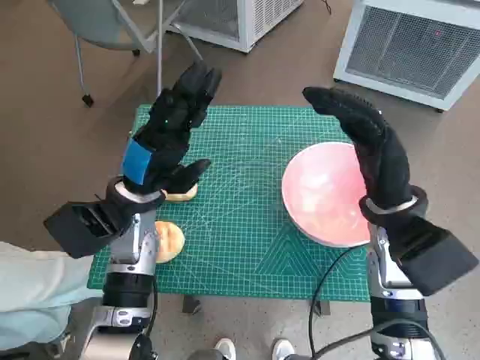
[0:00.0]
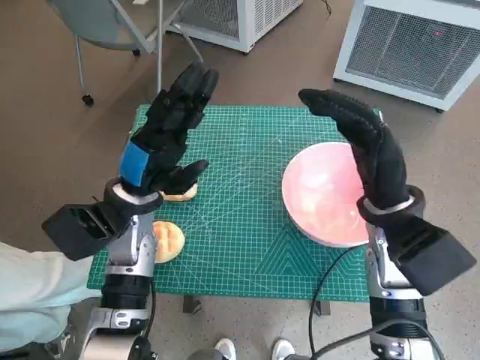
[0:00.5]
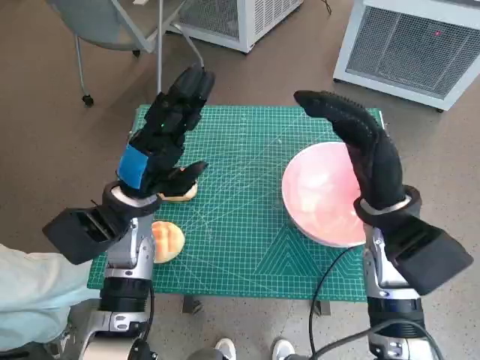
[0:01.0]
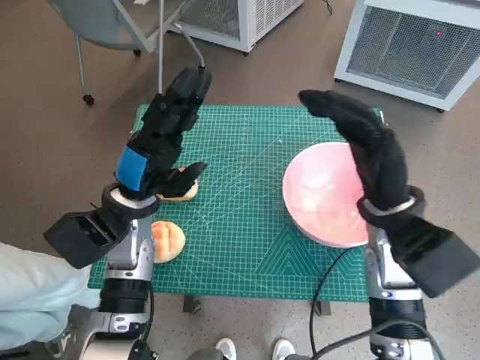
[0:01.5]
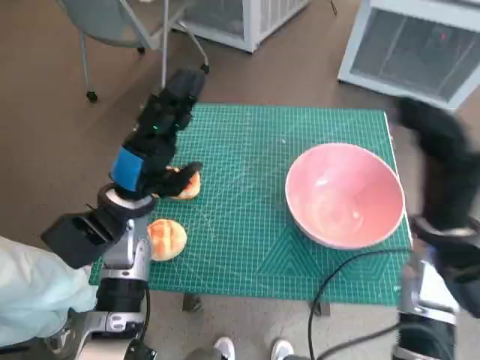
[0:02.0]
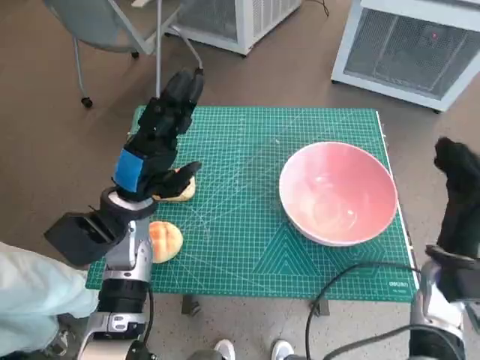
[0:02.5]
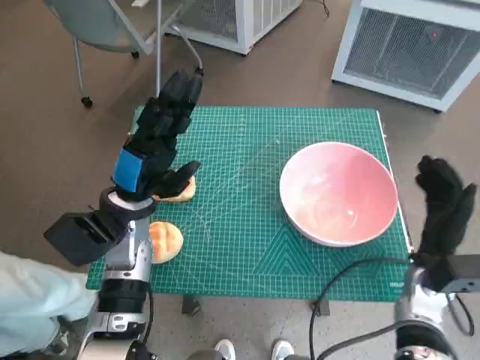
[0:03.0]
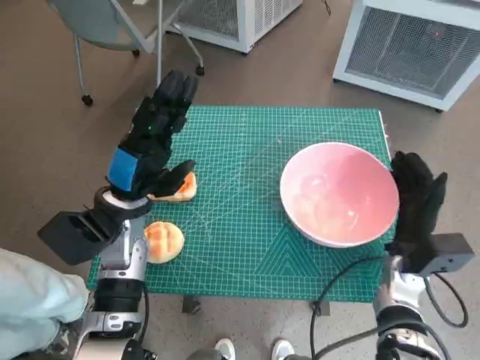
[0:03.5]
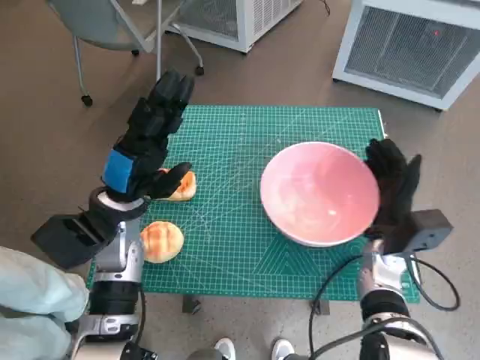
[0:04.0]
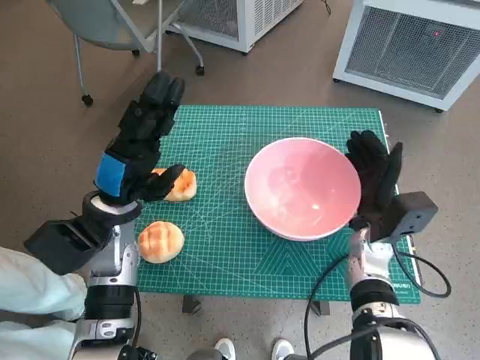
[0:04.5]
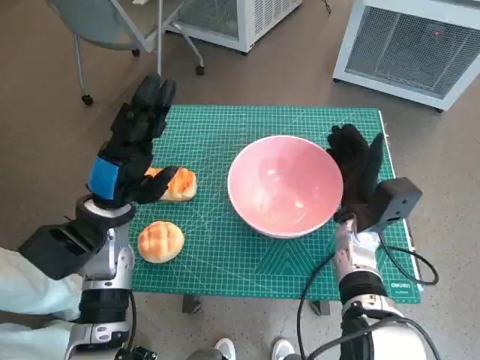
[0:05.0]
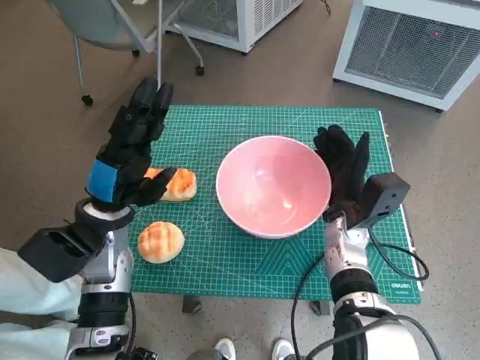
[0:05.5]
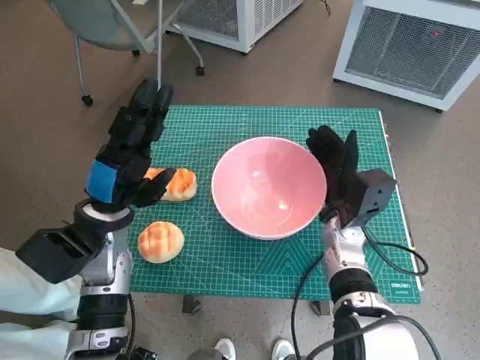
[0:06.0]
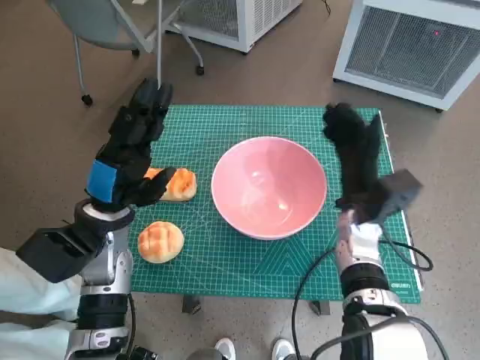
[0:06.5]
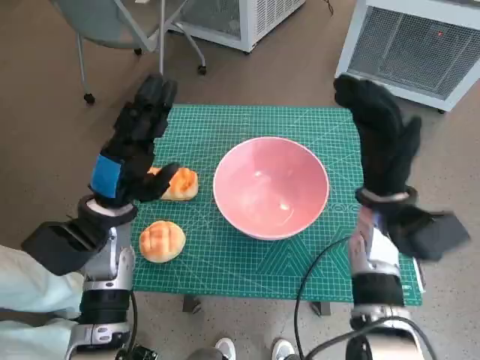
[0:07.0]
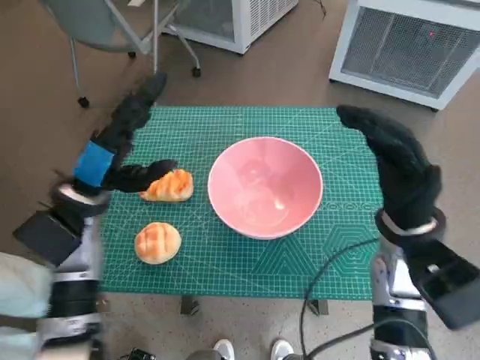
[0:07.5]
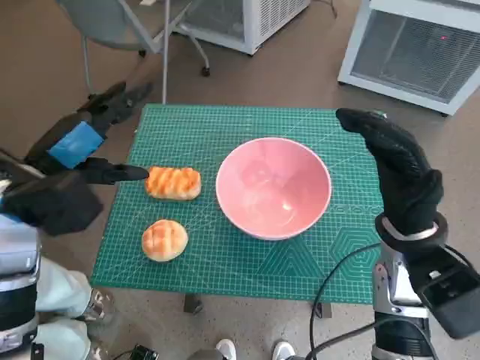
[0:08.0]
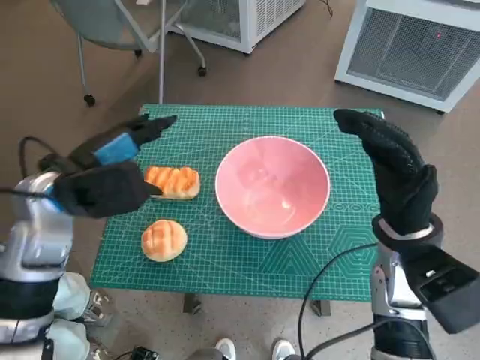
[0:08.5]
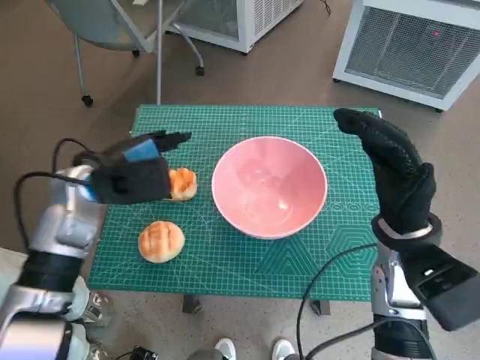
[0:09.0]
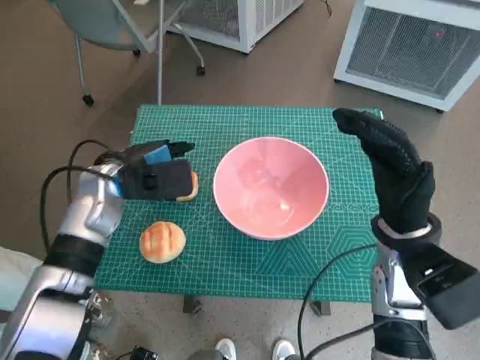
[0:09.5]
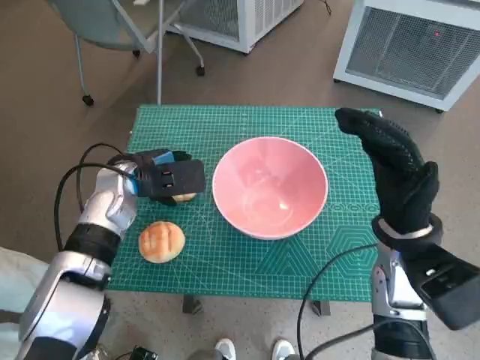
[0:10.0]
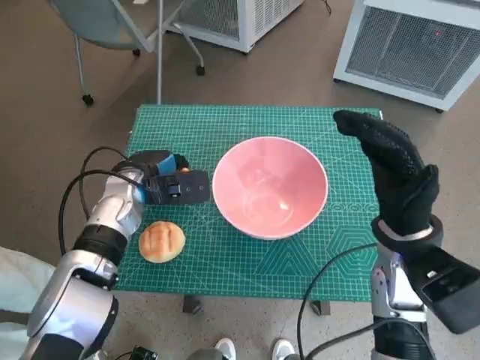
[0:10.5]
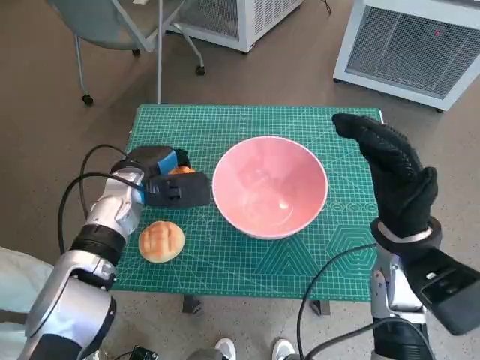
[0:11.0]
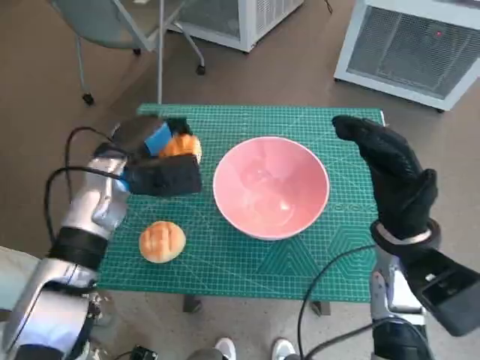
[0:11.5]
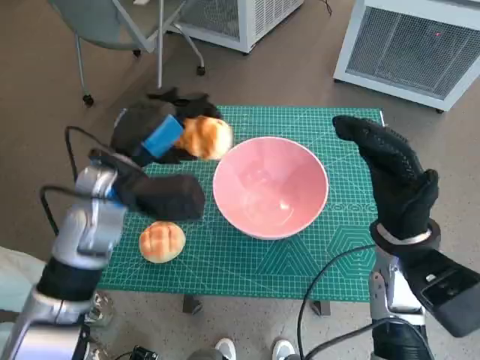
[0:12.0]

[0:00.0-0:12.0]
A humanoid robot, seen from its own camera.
Task of the whole recording: Push the bowl into the center of the table and put the bread into the bowl.
Step, 0:00.0 to 0:06.0: Move the pink bowl to the center of table with right hand.
Step, 0:06.5 to 0:10.0: Grasp the long bread with left hand.
0:02.0 to 0:04.0: The right hand goes about 10 cm downward.
0:04.0 to 0:06.0: The right hand is displaced to the left by about 5 cm.
0:06.0 to 0:08.0: The left hand is displaced upward by roughly 10 cm, while the right hand is displaced upward, backward and to the right by some 10 cm.
0:08.0 to 0:10.0: The left hand travels downward, forward and to the right by roughly 15 cm.
0:10.0 to 0:12.0: The left hand is displaced upward by about 5 cm.

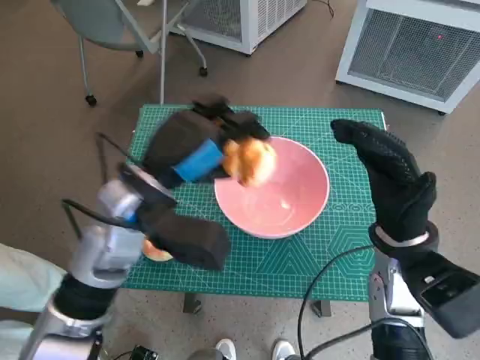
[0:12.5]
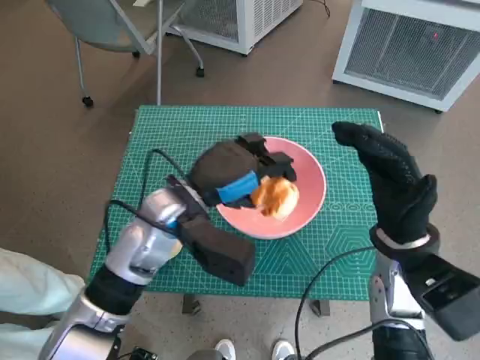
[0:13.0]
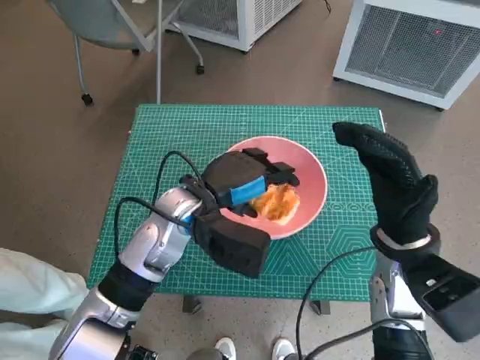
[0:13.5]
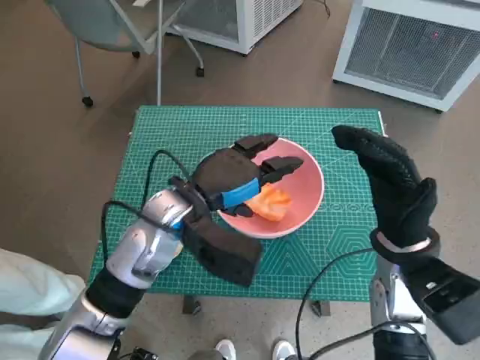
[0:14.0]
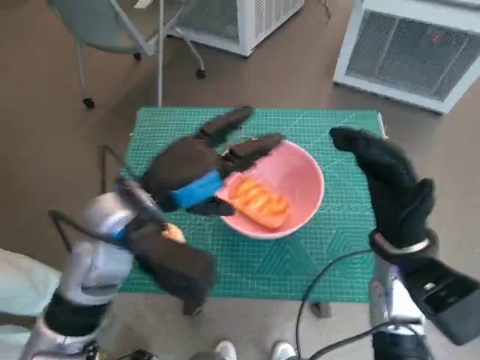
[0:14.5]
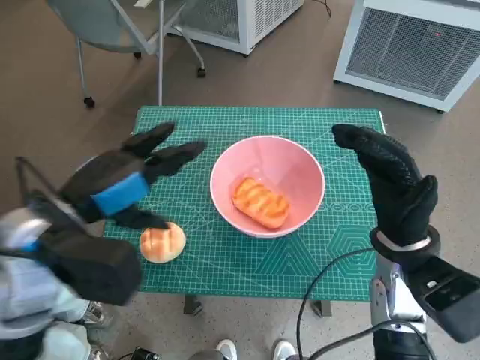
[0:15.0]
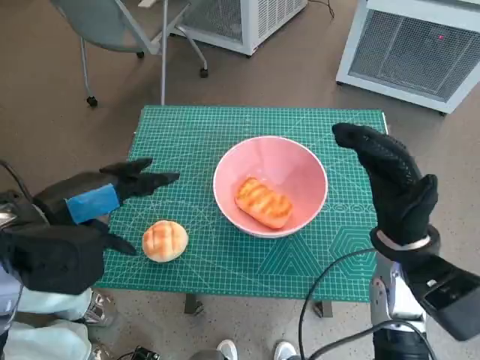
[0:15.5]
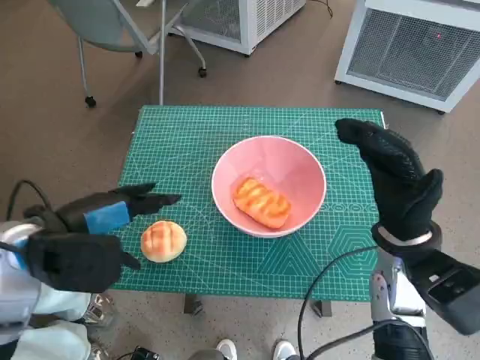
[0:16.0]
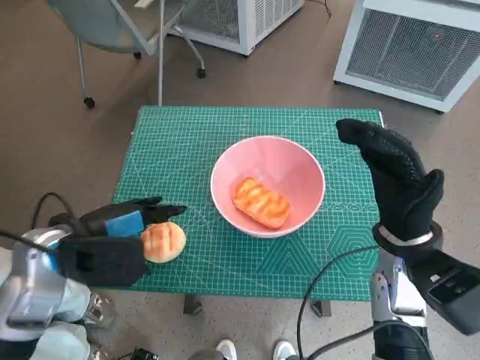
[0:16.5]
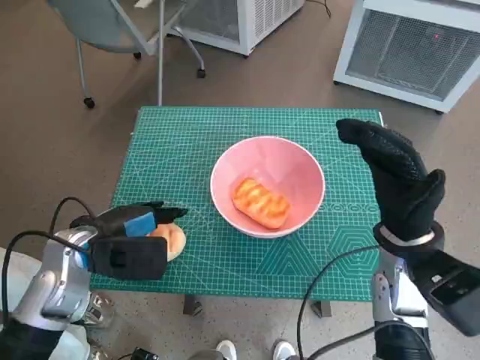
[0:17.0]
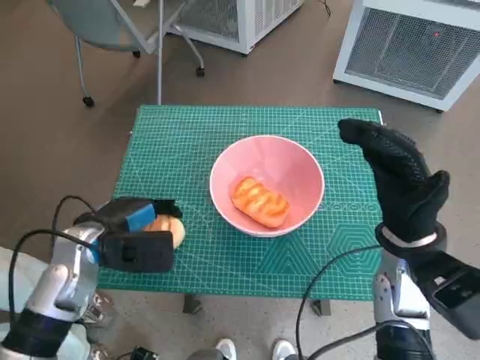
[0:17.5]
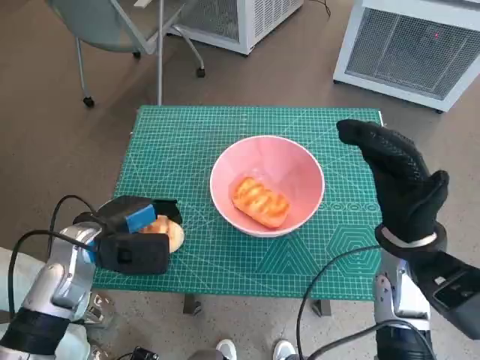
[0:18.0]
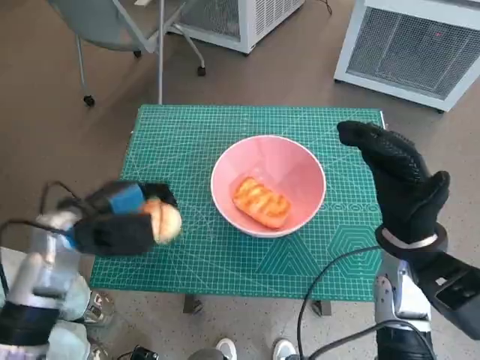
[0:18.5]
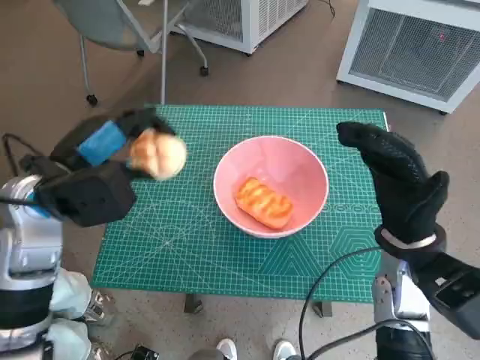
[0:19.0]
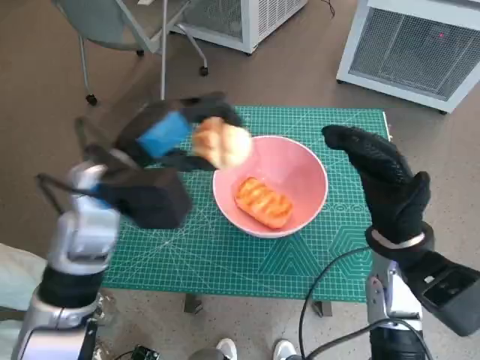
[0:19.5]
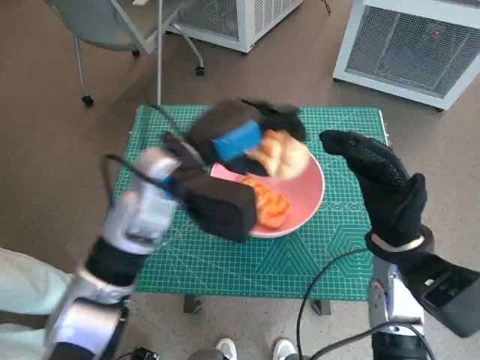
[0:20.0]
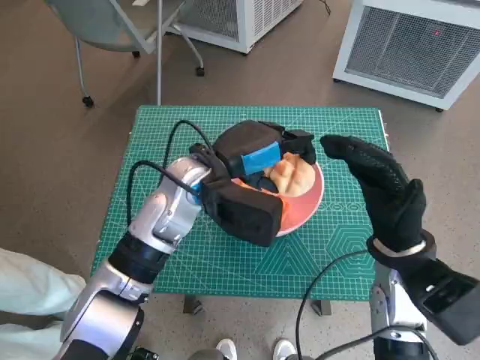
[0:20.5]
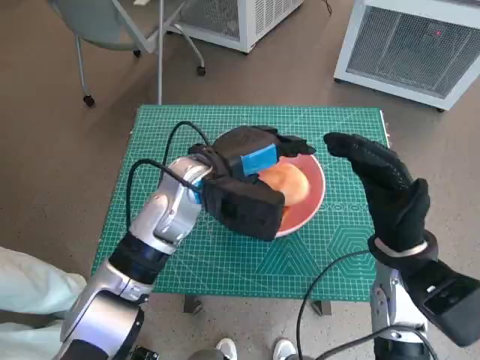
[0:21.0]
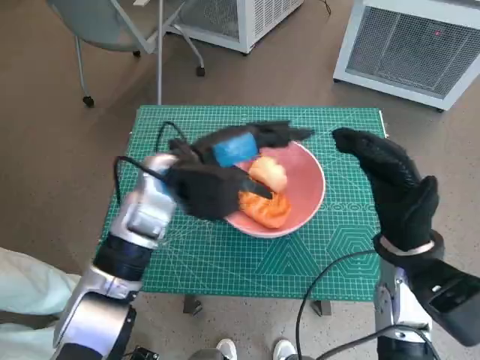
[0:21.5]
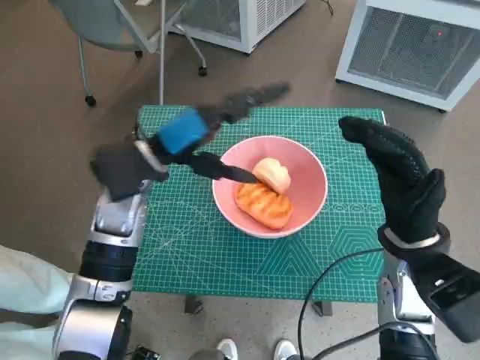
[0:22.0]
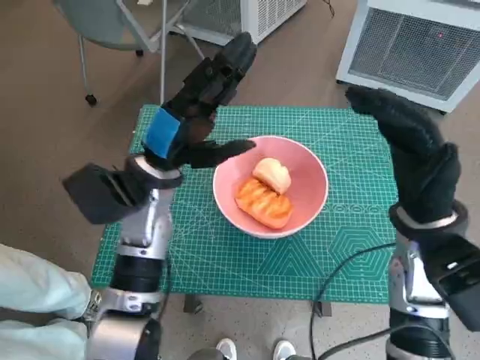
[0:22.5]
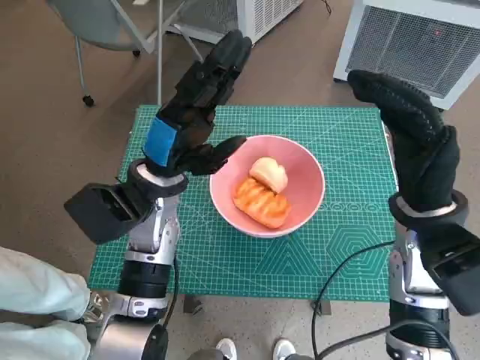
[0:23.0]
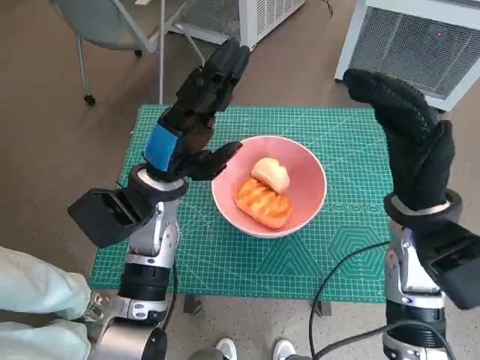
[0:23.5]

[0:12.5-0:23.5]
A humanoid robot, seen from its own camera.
Task of the whole recording: Push the bowl into the center of the table and put the bread into the bowl.
Step, 0:14.0 to 0:17.0: Grasp the round bread with left hand.
Step, 0:17.5 to 0:21.0: Place the round bread in pink bowl with left hand.
0:14.5 to 0:16.0: The left hand heads to the left, covering some 10 cm.
0:16.0 to 0:18.0: The left hand moves downward, roughly 10 cm.
0:18.0 to 0:20.0: The left hand heads to the right and upward, covering roughly 15 cm.
0:20.0 to 0:21.5: The hands move only a little.
0:21.5 to 0:23.5: The right hand moves about 5 cm.

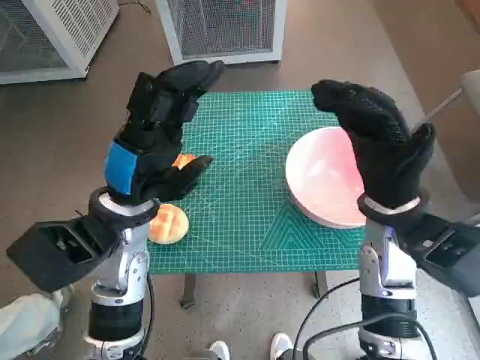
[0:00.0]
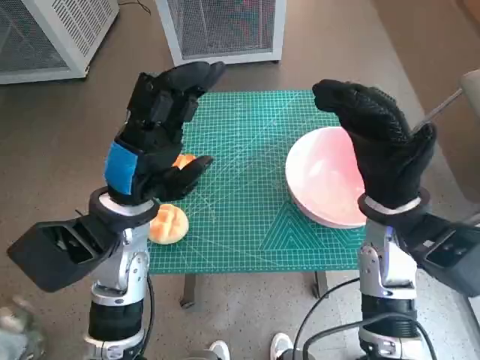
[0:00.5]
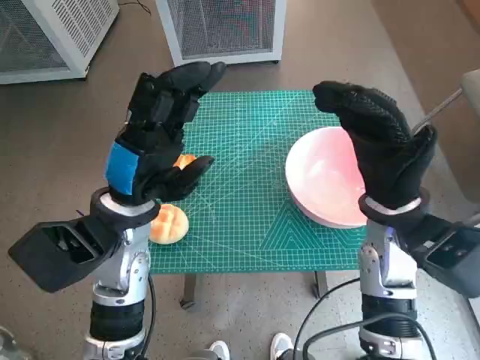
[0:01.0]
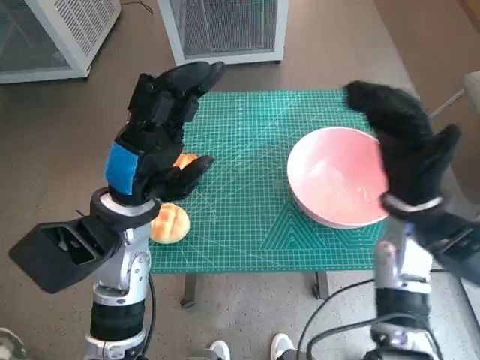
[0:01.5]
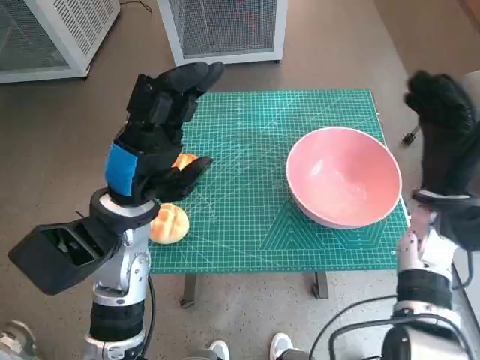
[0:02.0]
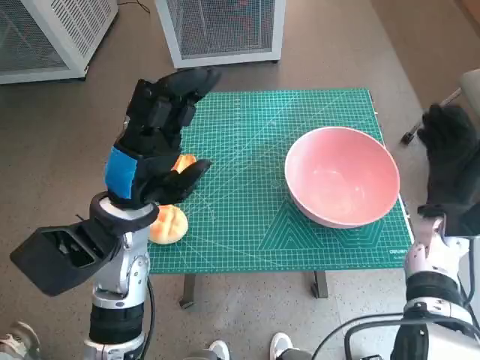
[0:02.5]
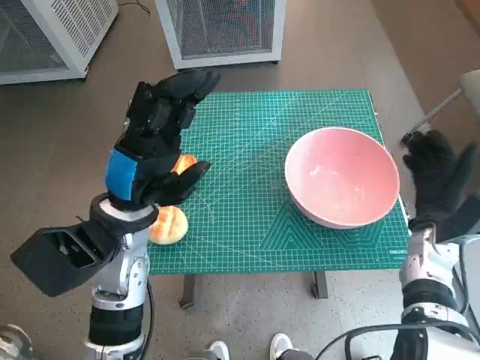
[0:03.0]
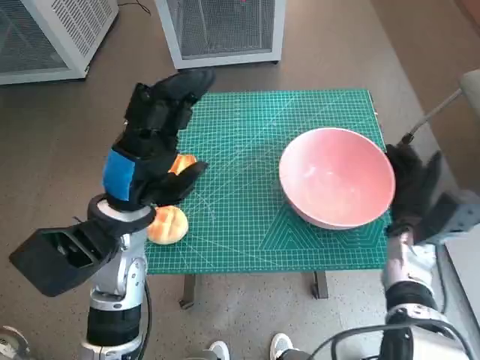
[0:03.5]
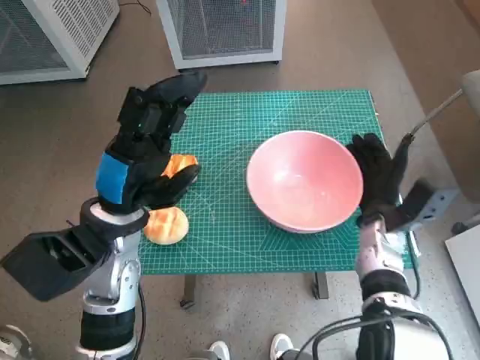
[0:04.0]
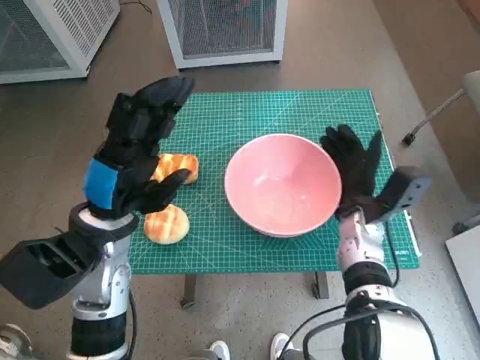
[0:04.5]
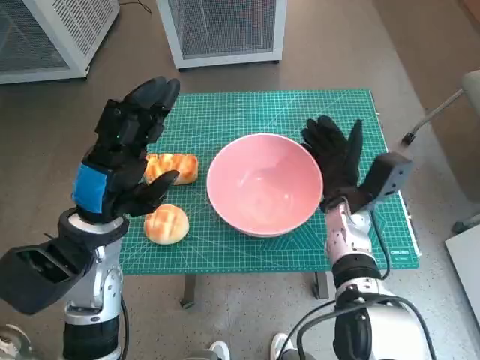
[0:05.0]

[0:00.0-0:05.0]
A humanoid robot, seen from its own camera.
Task of the whole recording: Push the bowl into the center of the table and put the bread into the bowl.
0:02.5 to 0:05.0: The right hand shifts some 10 cm to the left.
